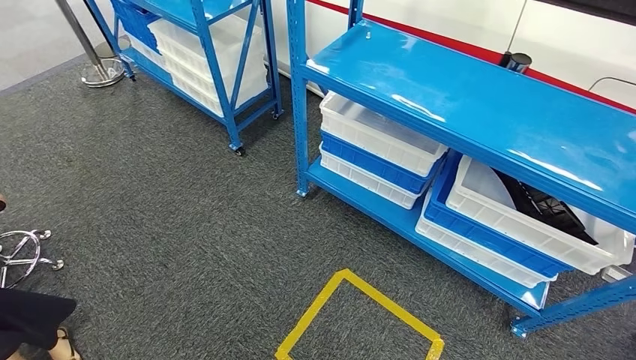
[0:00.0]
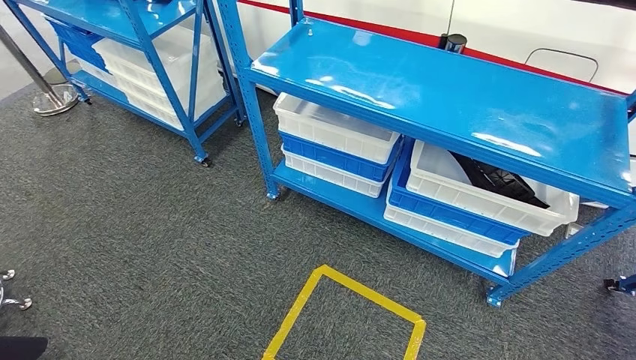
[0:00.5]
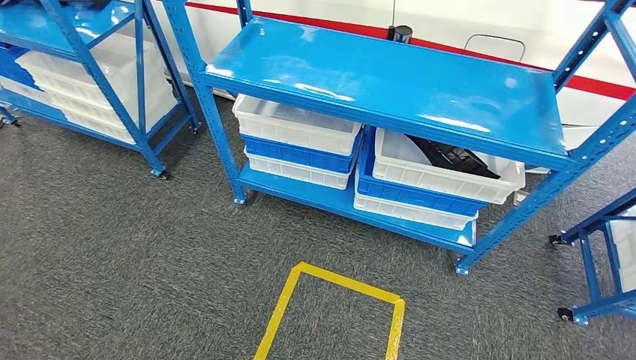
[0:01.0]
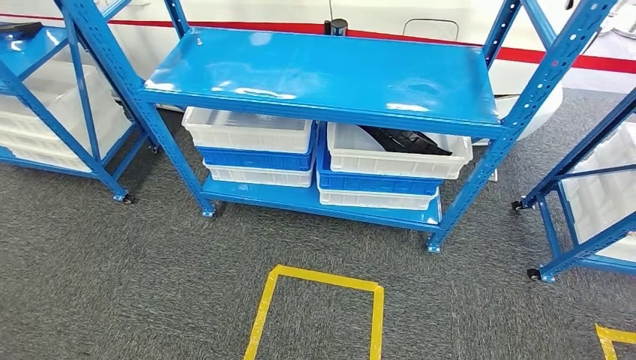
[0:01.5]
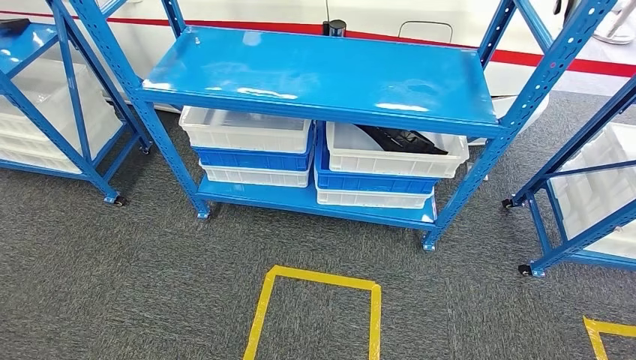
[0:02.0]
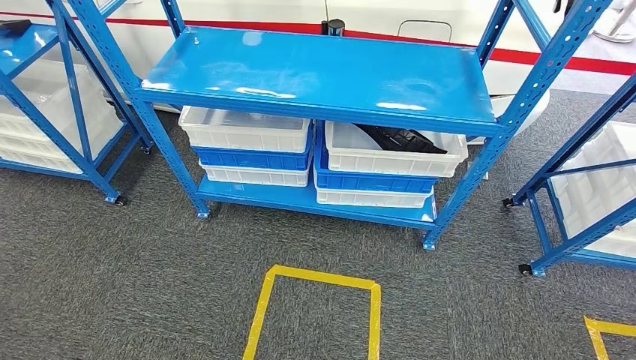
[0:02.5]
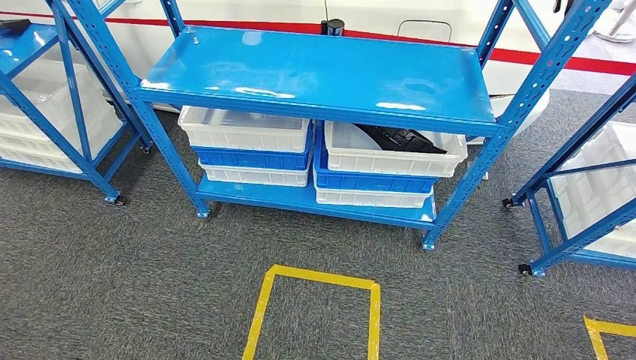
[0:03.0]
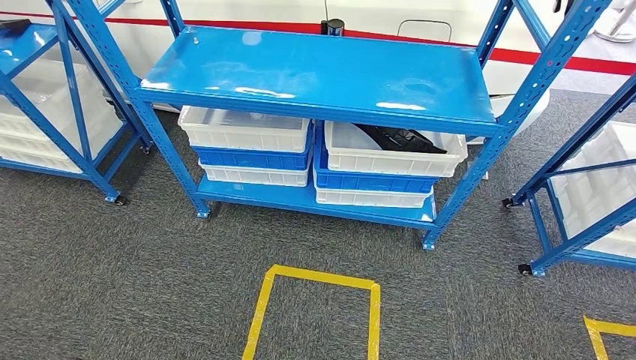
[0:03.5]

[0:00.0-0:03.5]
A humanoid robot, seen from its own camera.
Step, 0:00.0 to 0:03.0: Move to the initial position of the shelf.
0:02.0 to 0:03.5: The hands make only small movements.
